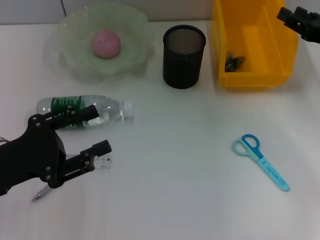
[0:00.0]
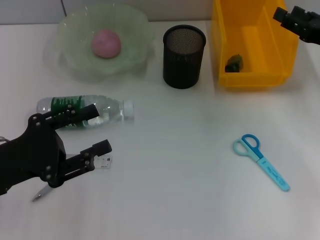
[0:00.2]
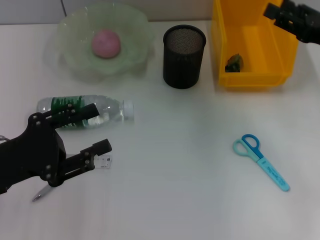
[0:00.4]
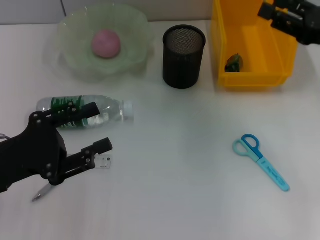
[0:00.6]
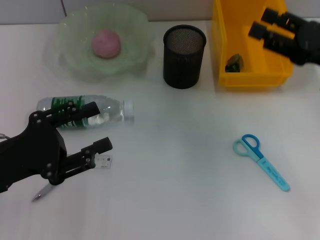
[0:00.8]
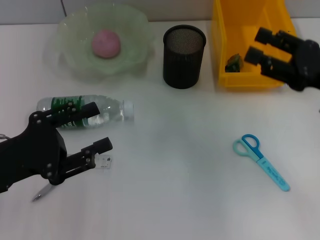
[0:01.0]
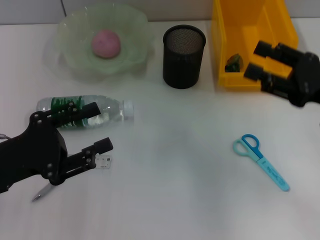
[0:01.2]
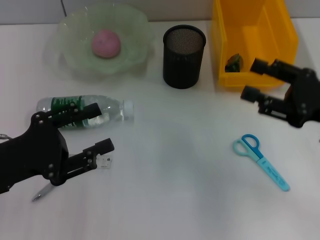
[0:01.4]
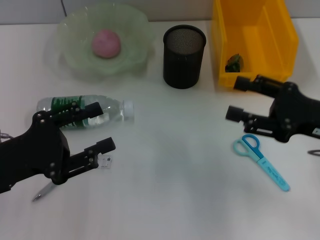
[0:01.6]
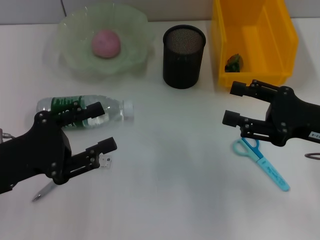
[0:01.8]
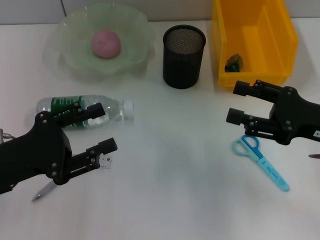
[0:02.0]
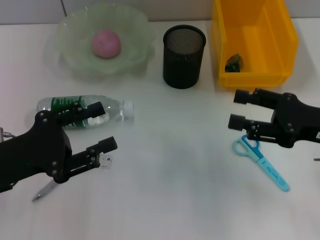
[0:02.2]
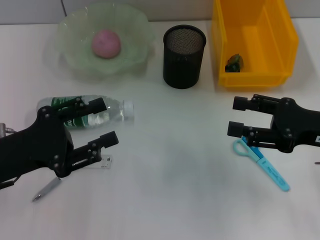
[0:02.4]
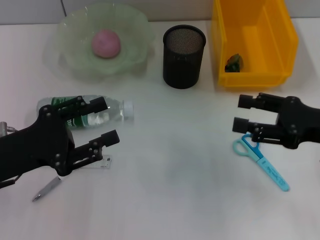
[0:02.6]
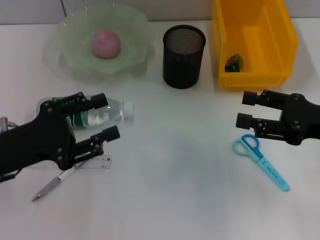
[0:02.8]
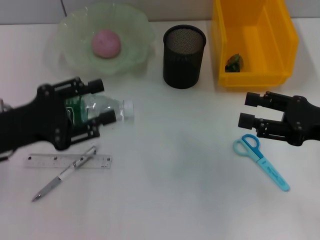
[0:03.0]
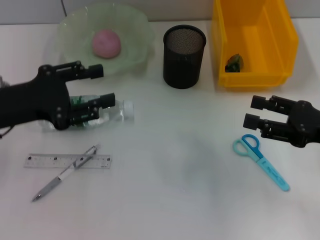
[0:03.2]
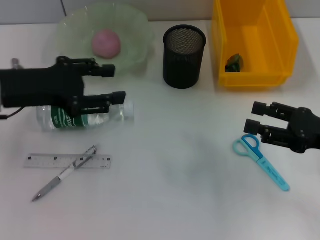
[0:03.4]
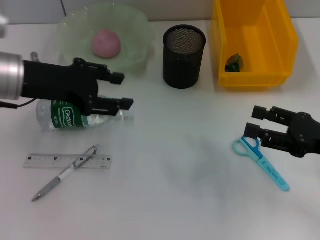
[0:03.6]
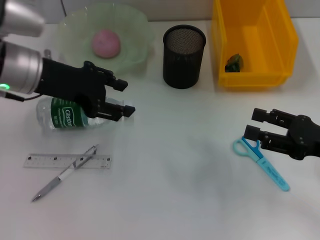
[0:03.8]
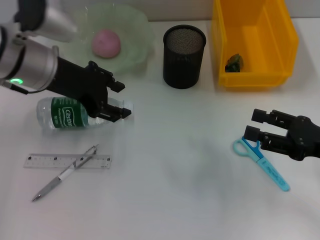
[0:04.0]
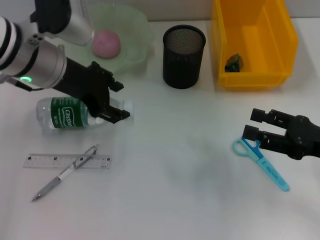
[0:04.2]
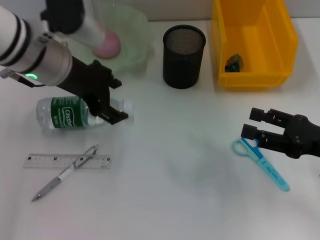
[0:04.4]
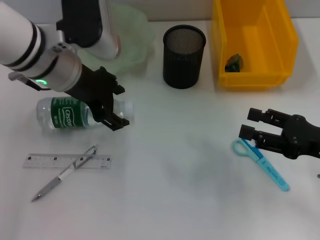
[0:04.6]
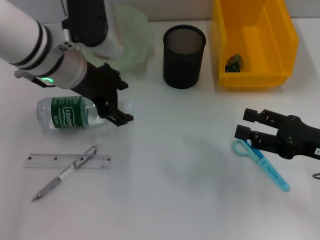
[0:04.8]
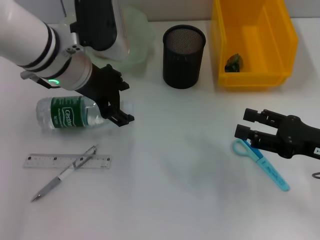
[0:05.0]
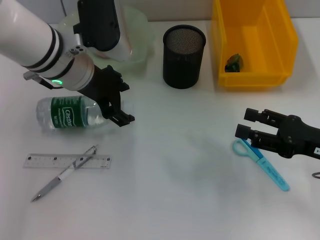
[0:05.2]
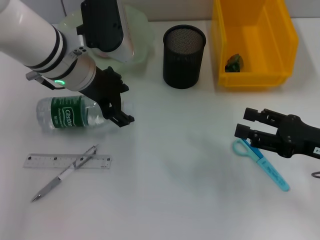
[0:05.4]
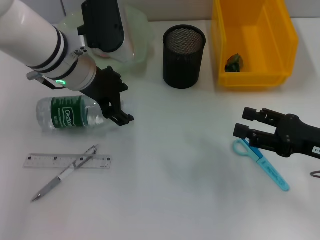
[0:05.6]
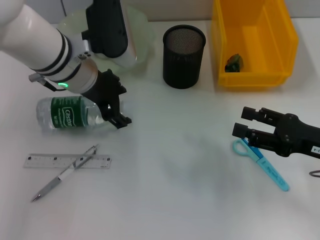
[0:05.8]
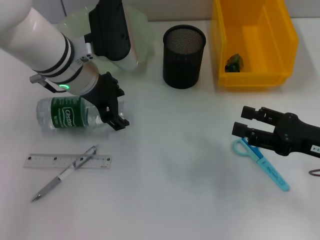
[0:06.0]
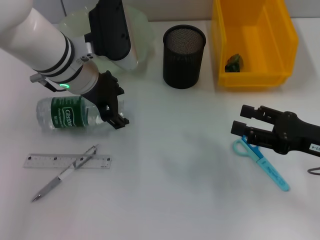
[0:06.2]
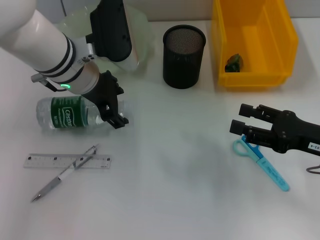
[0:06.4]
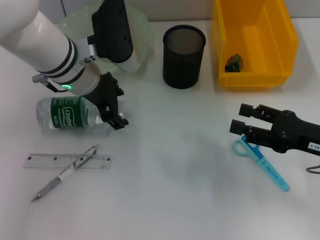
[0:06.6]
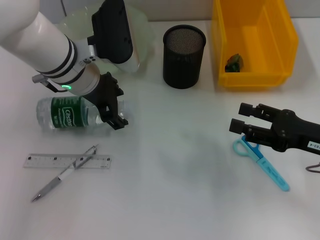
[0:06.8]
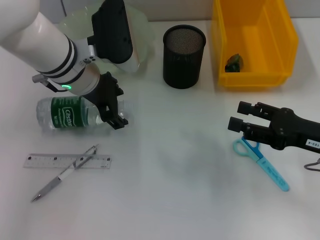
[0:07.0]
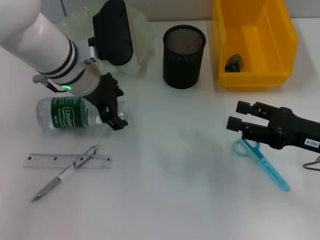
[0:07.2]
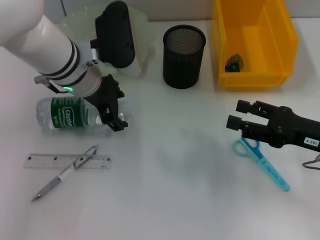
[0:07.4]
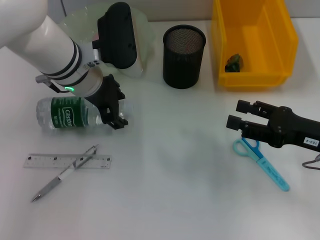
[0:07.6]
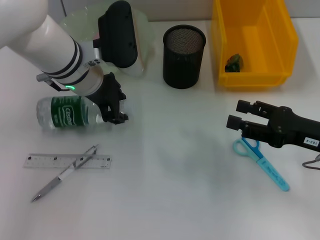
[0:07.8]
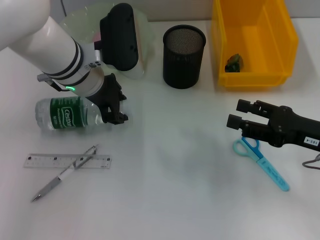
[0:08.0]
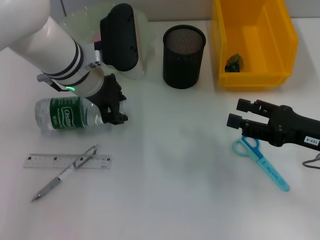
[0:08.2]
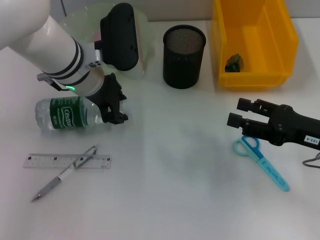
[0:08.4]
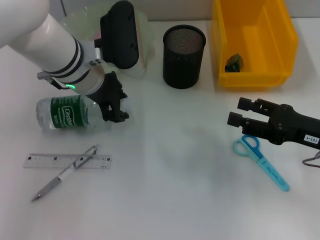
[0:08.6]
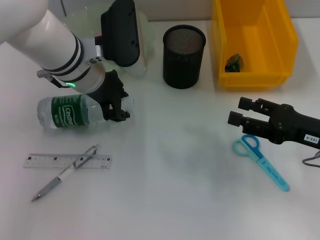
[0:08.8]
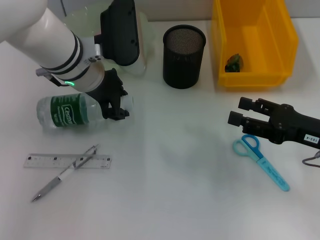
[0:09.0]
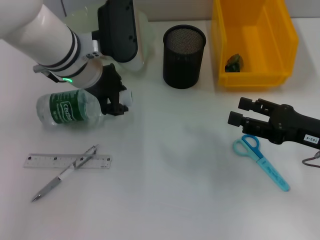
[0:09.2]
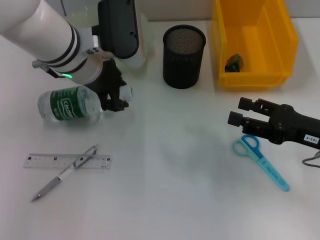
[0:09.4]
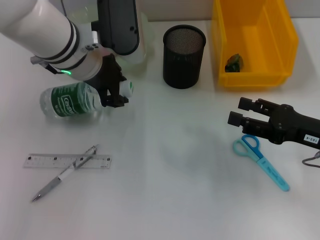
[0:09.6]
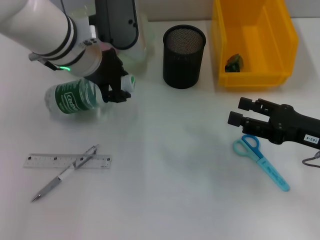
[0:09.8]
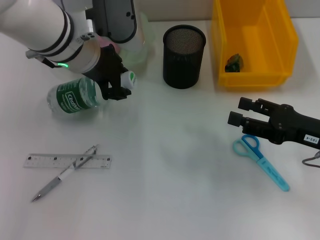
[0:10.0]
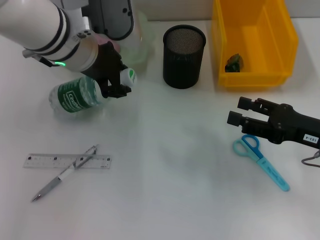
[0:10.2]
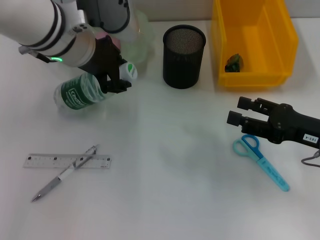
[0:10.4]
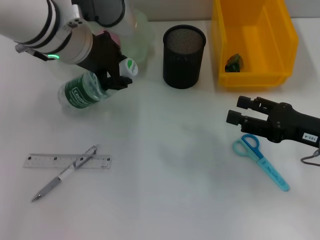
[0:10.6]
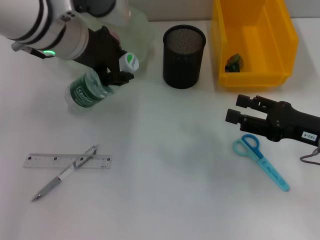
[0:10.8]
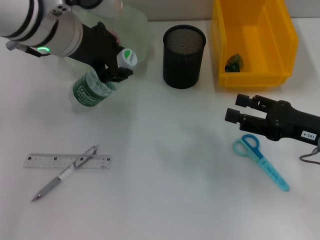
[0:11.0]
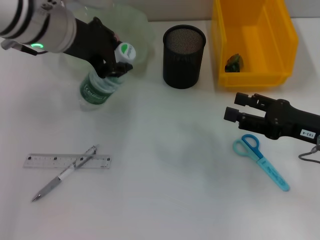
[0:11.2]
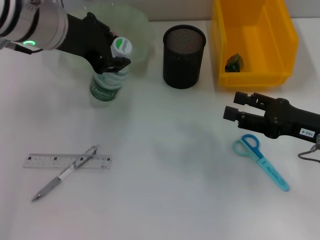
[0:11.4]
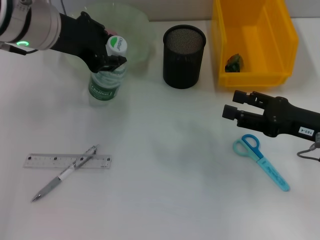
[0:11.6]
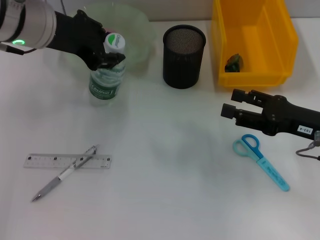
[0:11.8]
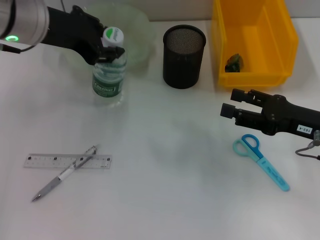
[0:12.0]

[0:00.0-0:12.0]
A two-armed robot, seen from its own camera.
Step, 0:00.0 to 0:08.6: Grab the water bottle with the left hand.
0:00.0 to 0:01.6: The right gripper is displaced backward by roughly 10 cm, and opens.
0:01.6 to 0:03.0: The grippers make only small movements.
0:03.0 to 0:04.4: The left gripper moves forward, to the right and upward, approximately 15 cm.
0:04.4 to 0:06.0: The left gripper moves approximately 5 cm.
0:06.0 to 0:07.6: Both grippers stay about where they are.
0:07.6 to 0:09.0: The left gripper closes its fingers.
0:09.0 to 0:10.4: The left gripper is displaced upward by roughly 5 cm.
0:10.4 to 0:12.0: The left gripper goes about 5 cm to the left.

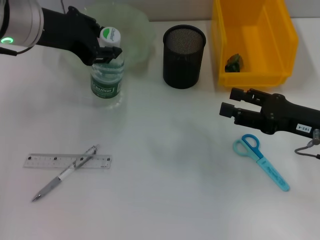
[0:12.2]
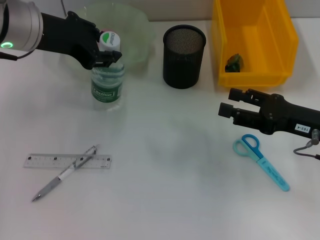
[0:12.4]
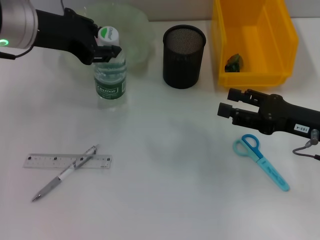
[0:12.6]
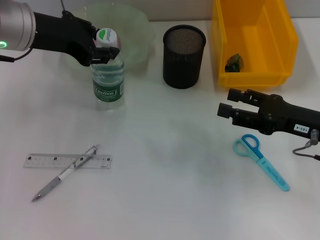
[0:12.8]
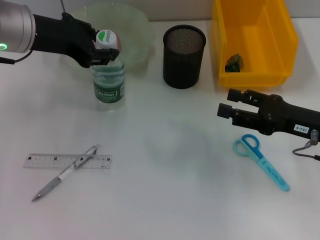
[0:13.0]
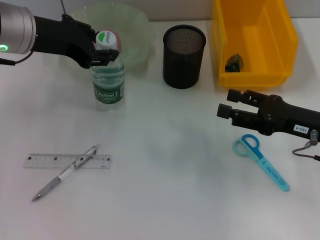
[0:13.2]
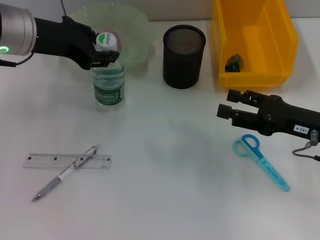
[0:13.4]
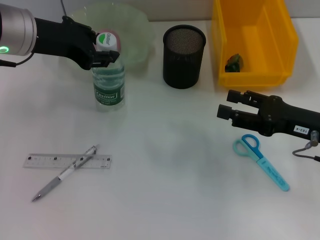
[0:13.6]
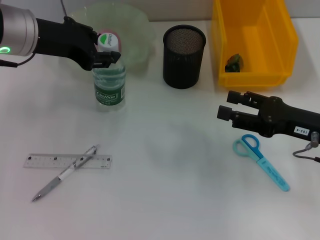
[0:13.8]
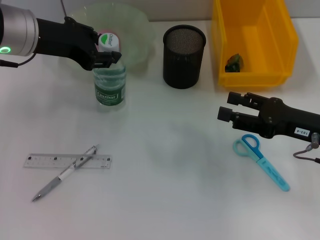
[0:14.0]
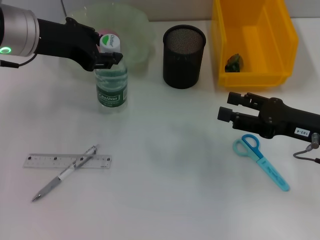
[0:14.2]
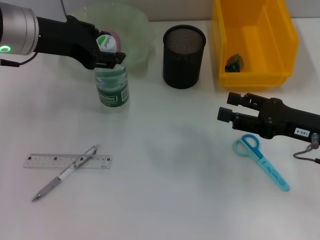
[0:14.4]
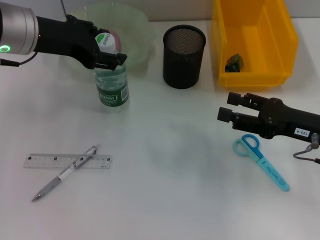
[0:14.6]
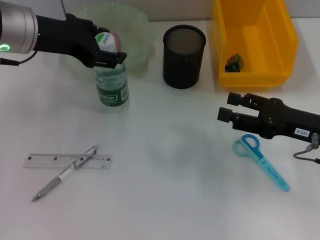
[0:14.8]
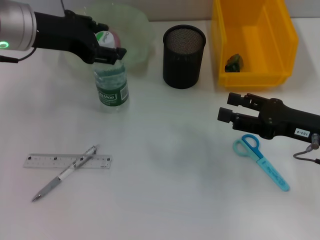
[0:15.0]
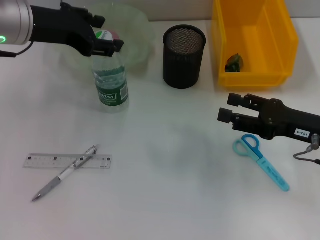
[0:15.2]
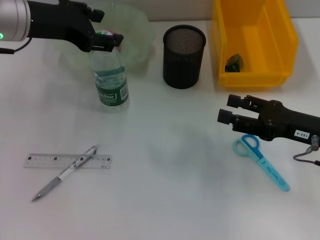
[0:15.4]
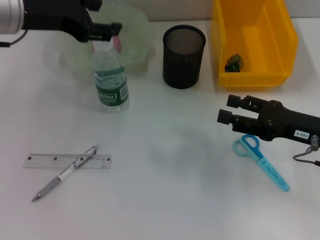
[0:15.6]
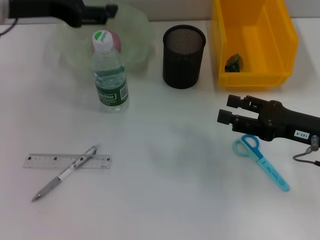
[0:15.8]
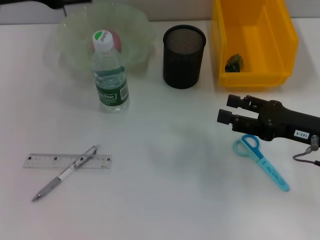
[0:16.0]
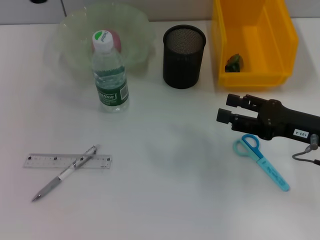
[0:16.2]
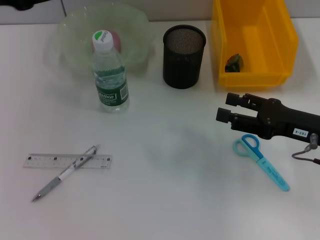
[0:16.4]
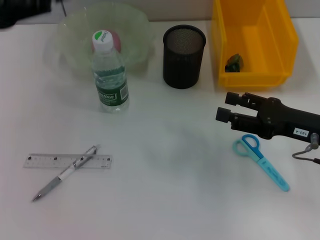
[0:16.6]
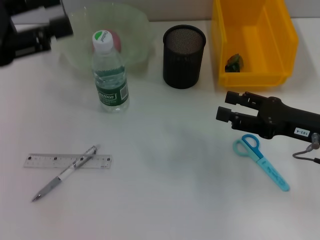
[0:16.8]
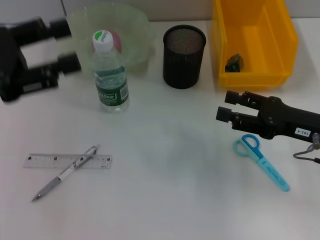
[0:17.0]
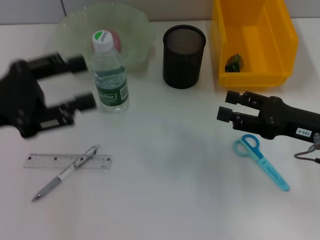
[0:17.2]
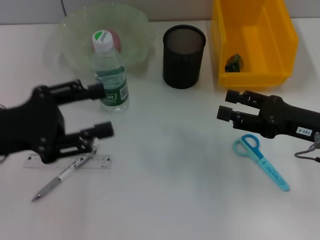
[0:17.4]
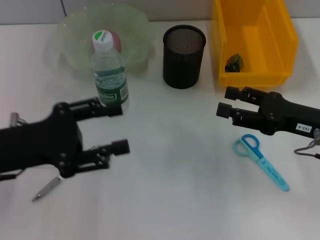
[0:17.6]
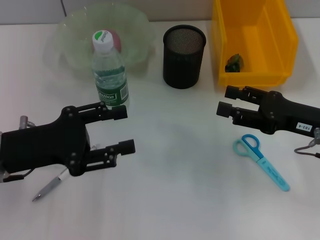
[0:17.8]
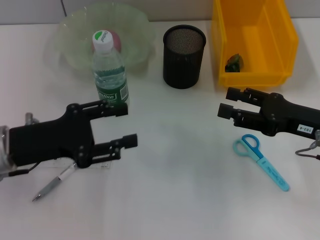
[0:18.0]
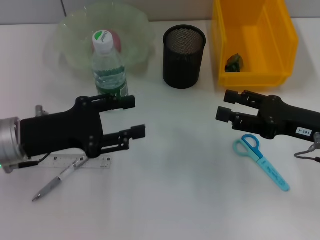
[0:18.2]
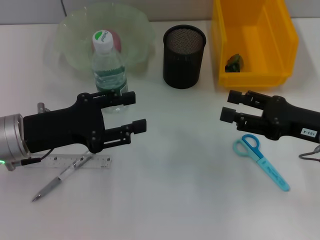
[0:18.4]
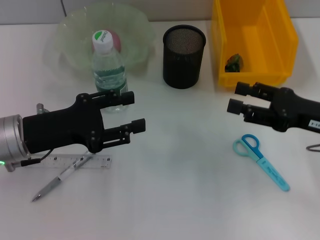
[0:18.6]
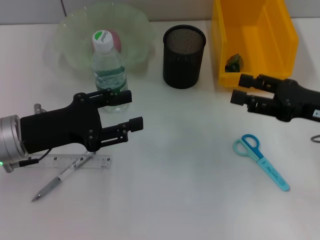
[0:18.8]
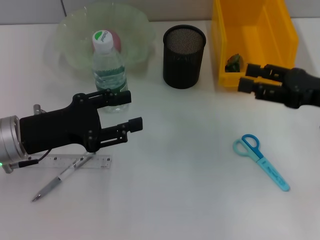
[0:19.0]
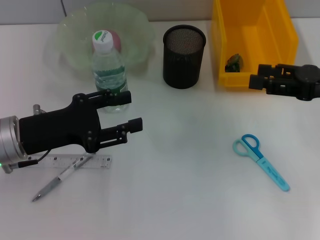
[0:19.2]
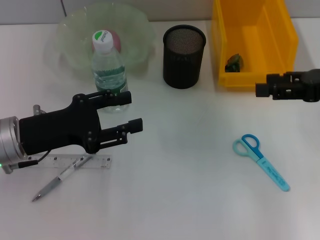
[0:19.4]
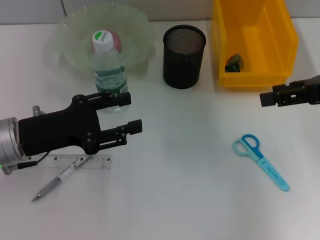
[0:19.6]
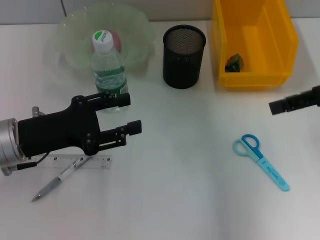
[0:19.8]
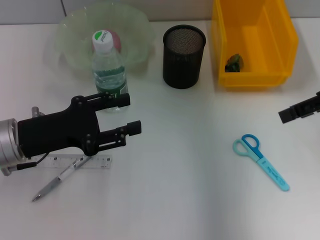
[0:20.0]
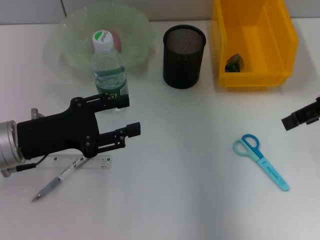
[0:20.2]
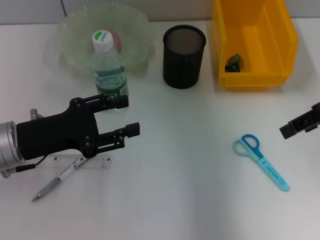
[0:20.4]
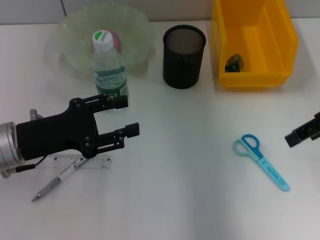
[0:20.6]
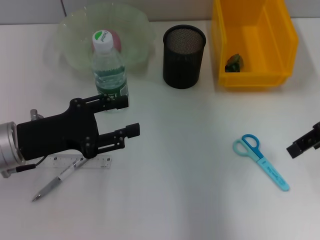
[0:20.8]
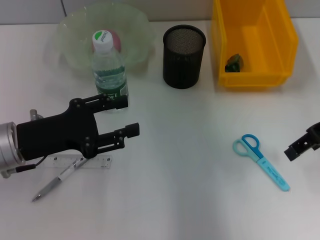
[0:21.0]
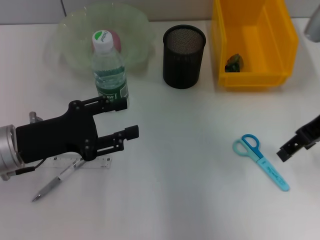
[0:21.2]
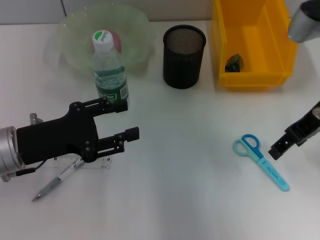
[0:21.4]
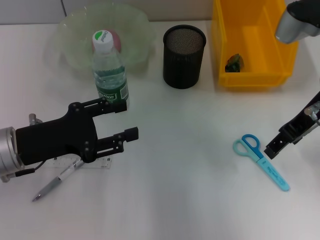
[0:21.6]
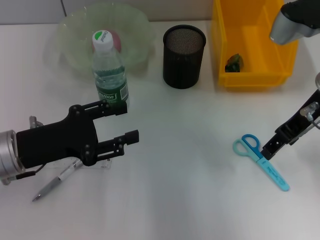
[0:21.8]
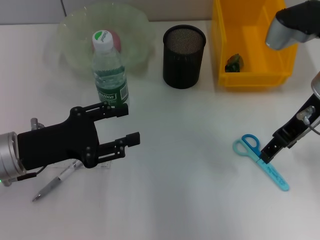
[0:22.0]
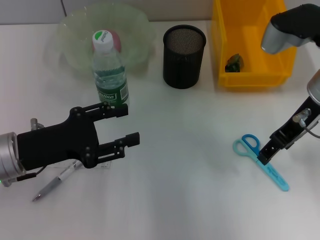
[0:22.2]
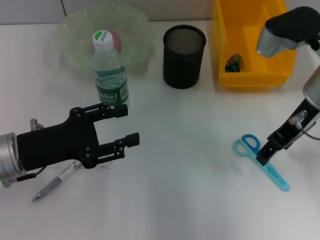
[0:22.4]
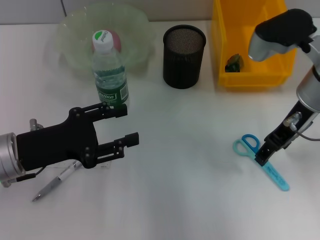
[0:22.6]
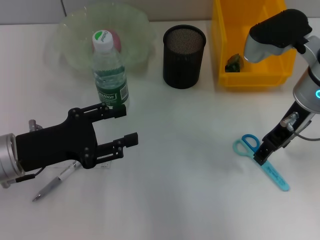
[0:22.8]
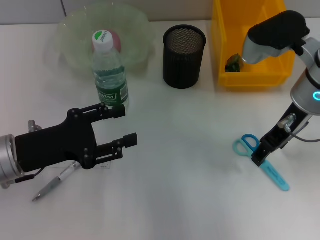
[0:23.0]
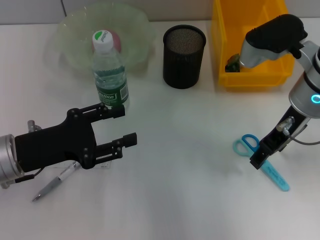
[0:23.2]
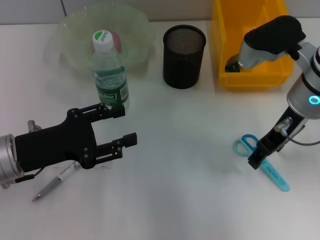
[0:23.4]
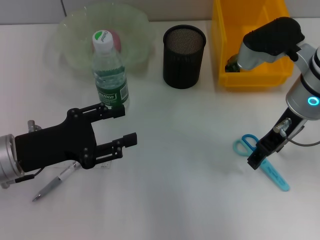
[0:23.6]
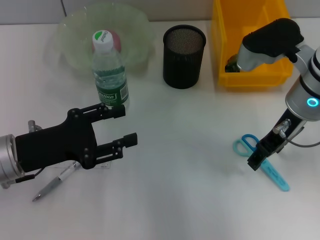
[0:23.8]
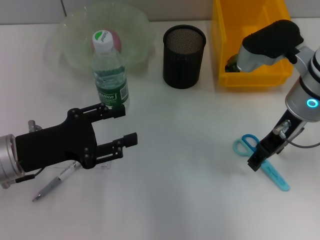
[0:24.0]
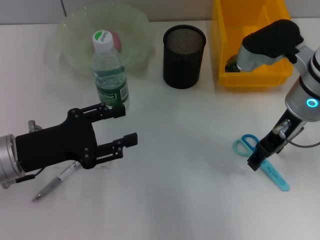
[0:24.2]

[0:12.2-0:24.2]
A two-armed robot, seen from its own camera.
Step, 0:12.2 to 0:15.2: Place the water bottle on the table with the left hand.
0:12.2 to 0:13.8: The grippers stay close to where they were, moving slightly.
0:13.8 to 0:15.2: The two grippers keep their place.
0:15.2 to 0:16.6: The left gripper goes about 10 cm to the left and backward.
0:16.6 to 0:18.2: The left gripper shifts roughly 15 cm downward and to the right.
0:18.2 to 0:19.8: The right gripper is displaced upward by about 15 cm.
0:19.8 to 0:21.2: The right gripper is displaced to the left by roughly 5 cm.
0:21.2 to 0:22.6: The right gripper goes approximately 5 cm to the left.
0:22.6 to 0:24.2: The grippers make only small movements.
